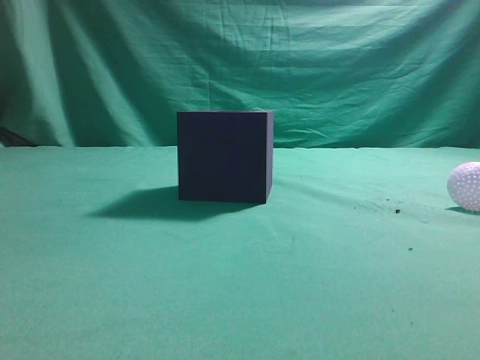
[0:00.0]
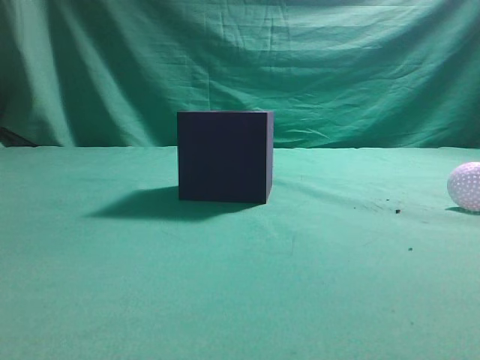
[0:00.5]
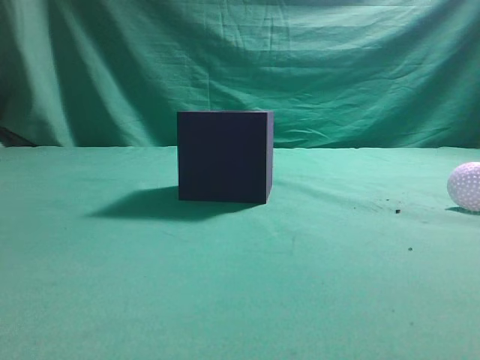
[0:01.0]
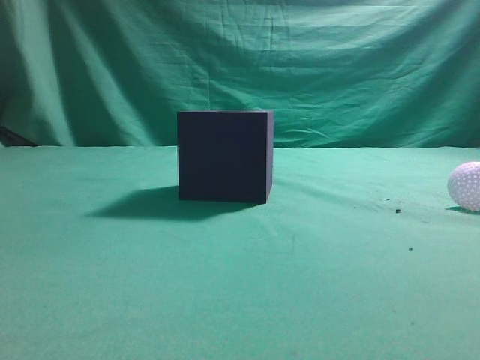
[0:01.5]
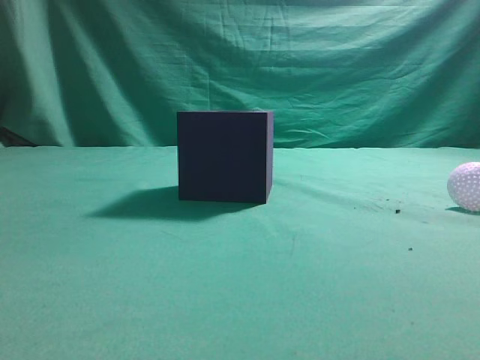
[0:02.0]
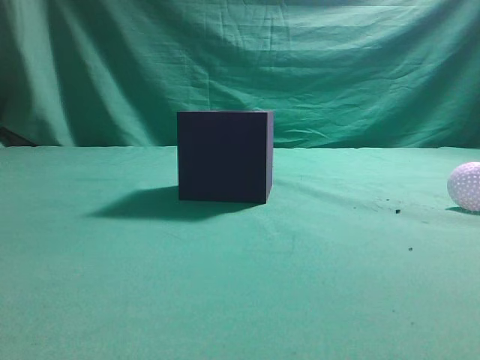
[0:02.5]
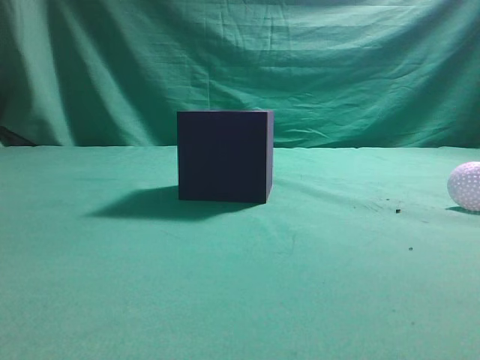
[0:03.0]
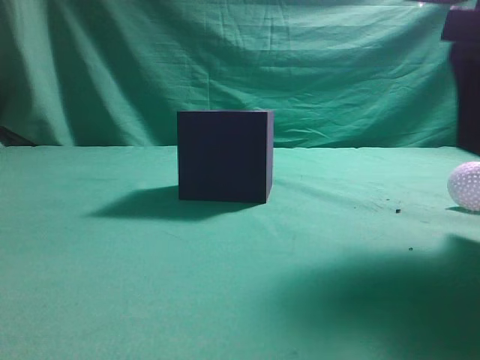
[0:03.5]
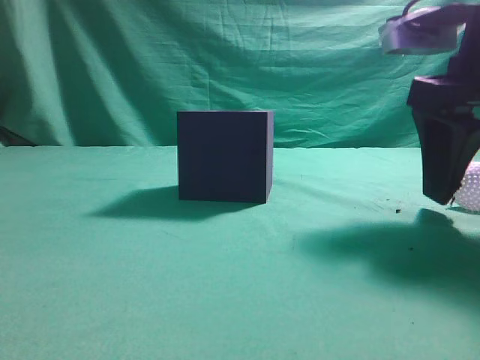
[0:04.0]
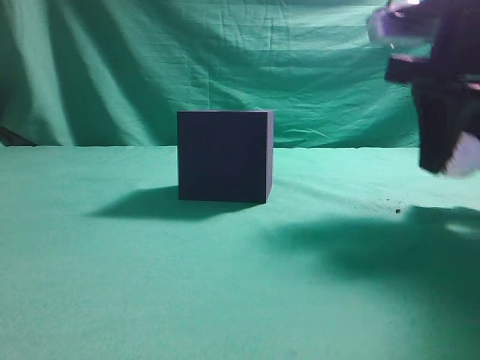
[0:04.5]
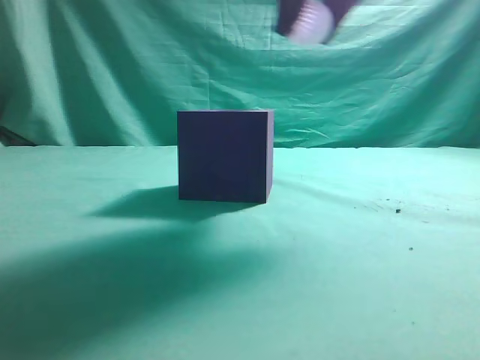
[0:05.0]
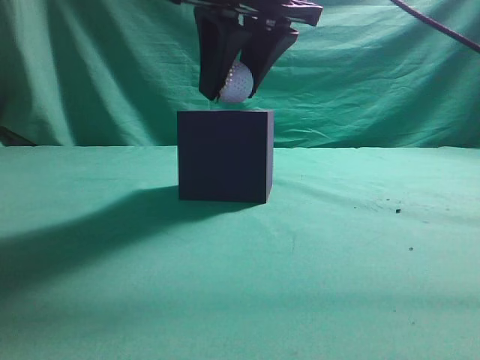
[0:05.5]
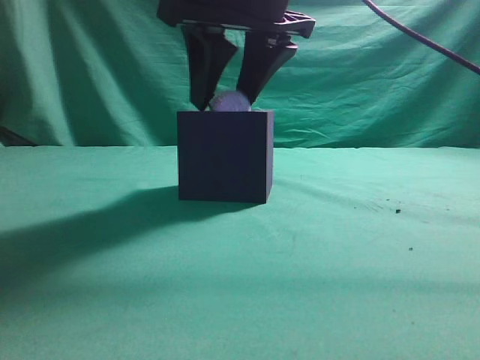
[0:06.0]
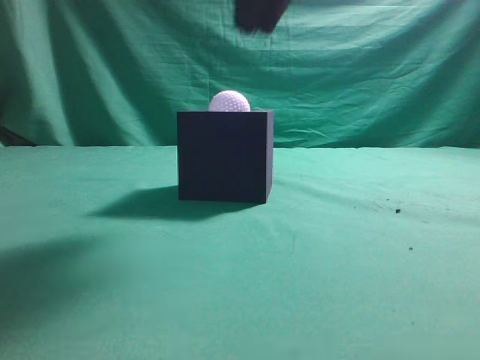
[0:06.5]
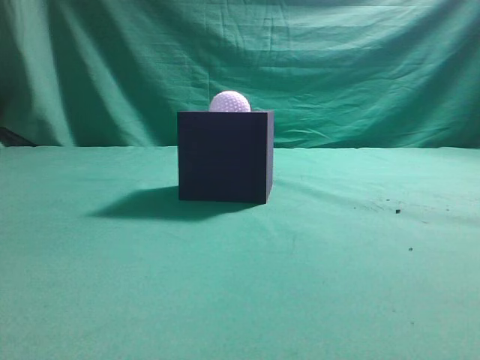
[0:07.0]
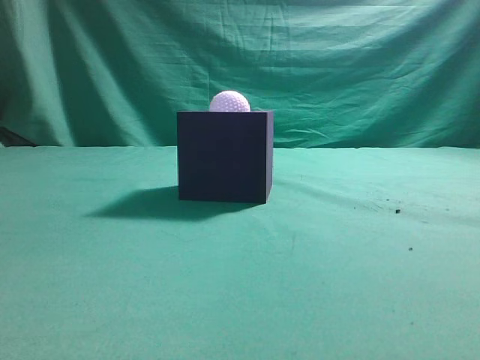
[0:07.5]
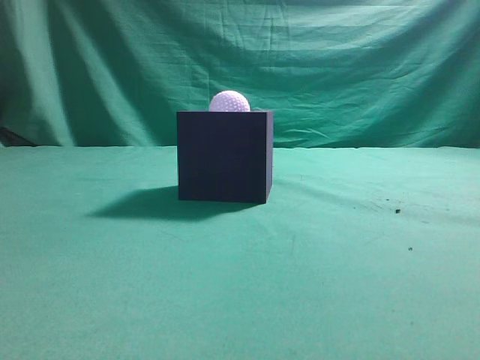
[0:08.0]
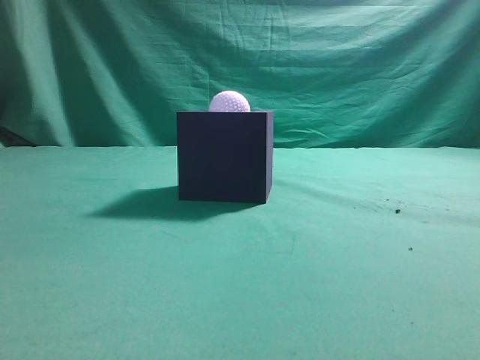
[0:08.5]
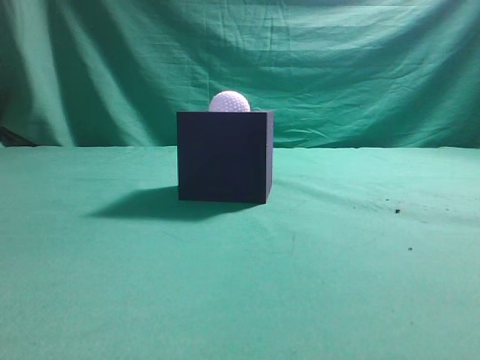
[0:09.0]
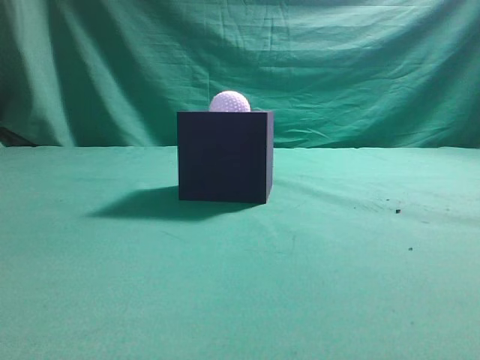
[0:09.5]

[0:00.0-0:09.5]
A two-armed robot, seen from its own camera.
Task of the whole recording: Pick up the ball and place it in the circular groove above the cube.
Step, 0:00.0 to 0:04.5: Grasp the sphere on the table.
Step, 0:05.0 to 0:06.0: Place the sphere into the sphere-shaped recess.
0:02.0 to 0:04.0: The right gripper travels forward, downward and to the left by some 25 cm, and opens up.
0:04.0 to 0:05.5: The right gripper goes some 20 cm to the left and upward, and closes up.
0:05.5 to 0:07.5: The right gripper travels backward, to the right and upward by some 30 cm, and closes its fingers.
